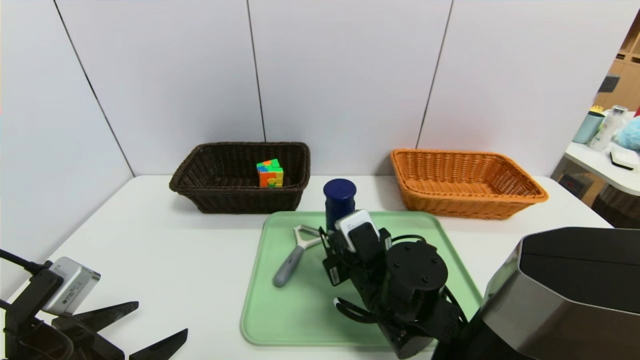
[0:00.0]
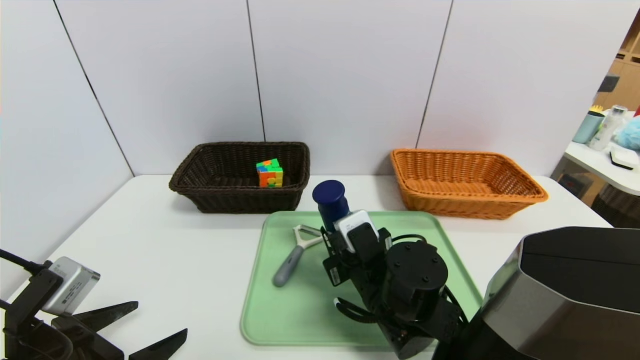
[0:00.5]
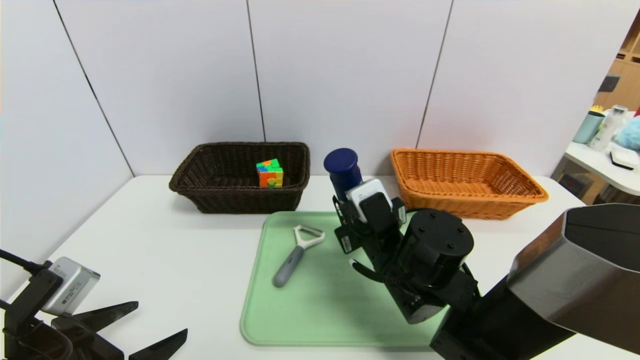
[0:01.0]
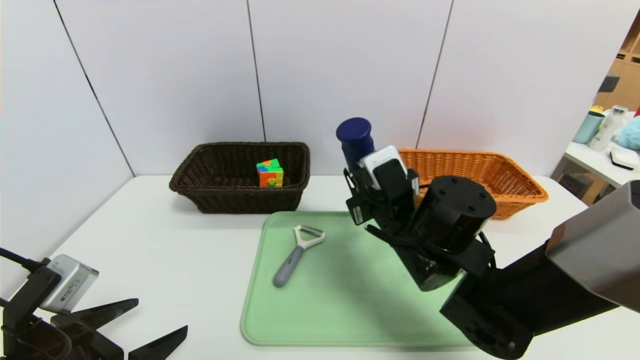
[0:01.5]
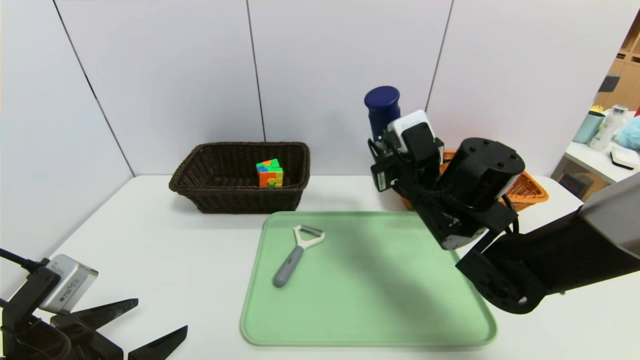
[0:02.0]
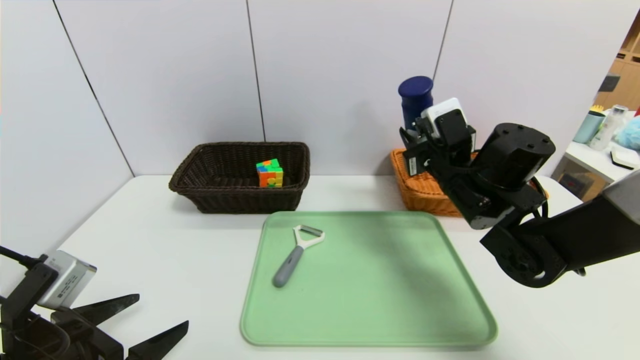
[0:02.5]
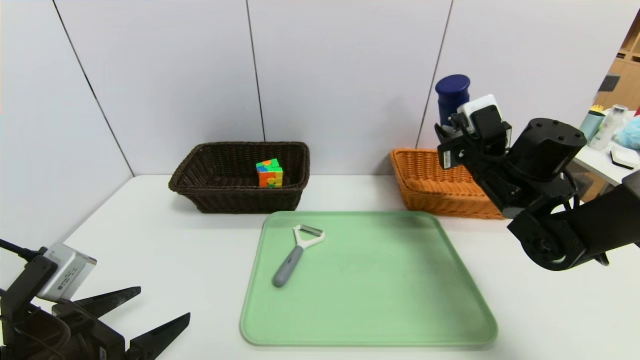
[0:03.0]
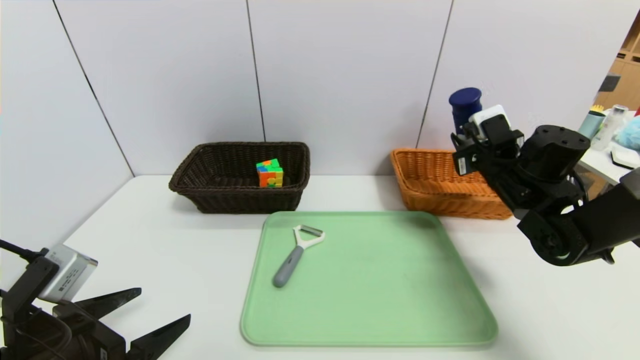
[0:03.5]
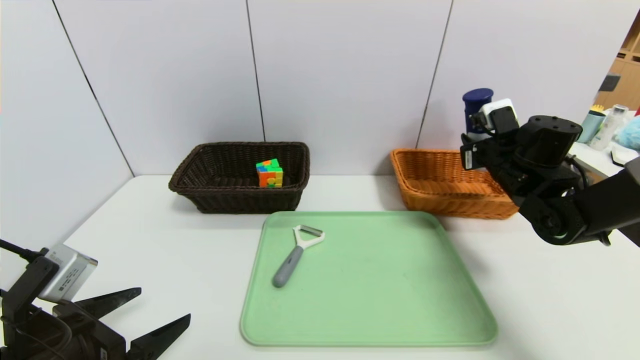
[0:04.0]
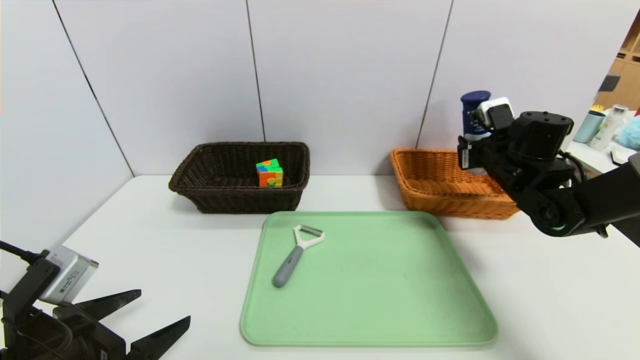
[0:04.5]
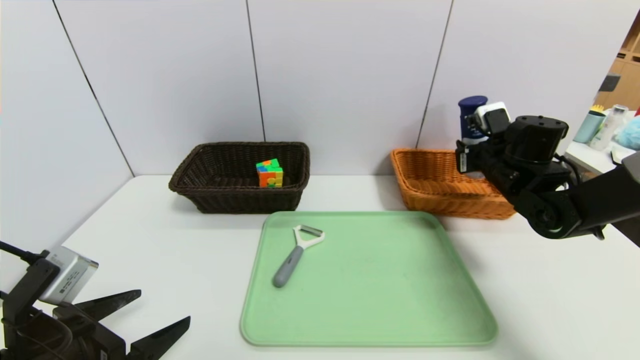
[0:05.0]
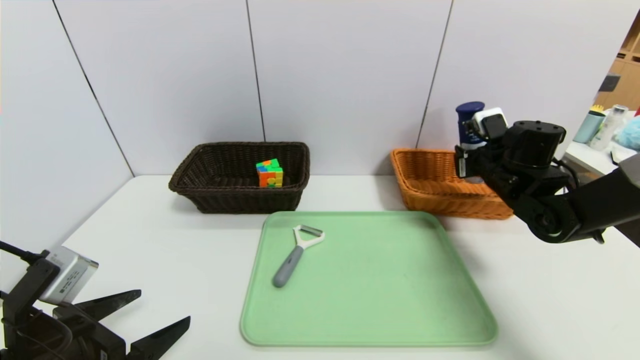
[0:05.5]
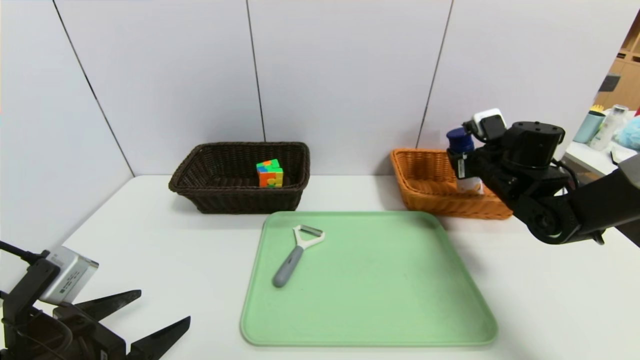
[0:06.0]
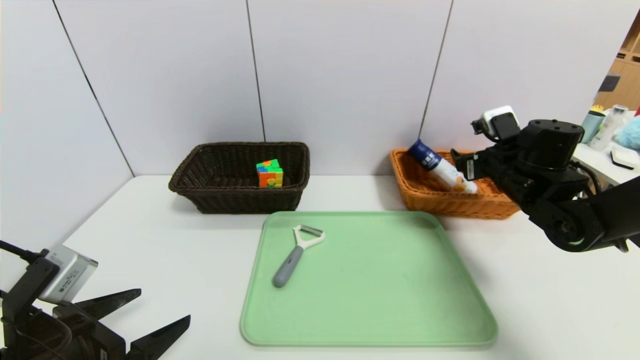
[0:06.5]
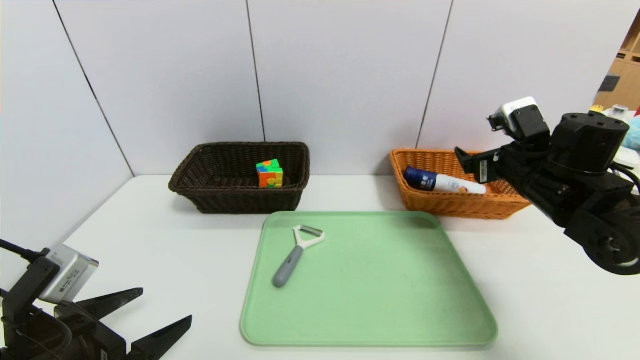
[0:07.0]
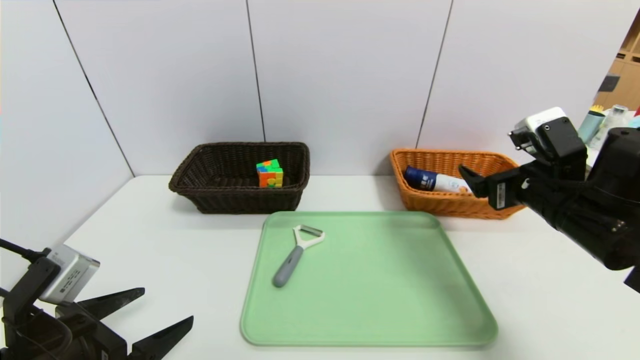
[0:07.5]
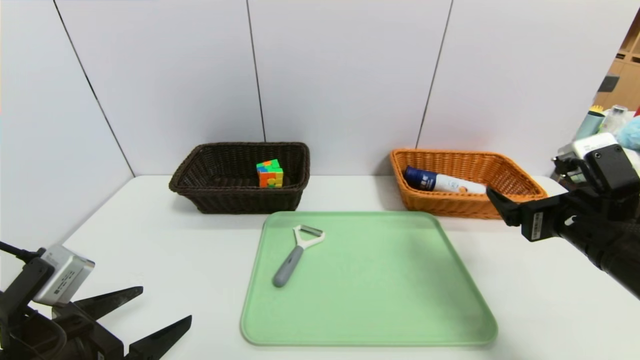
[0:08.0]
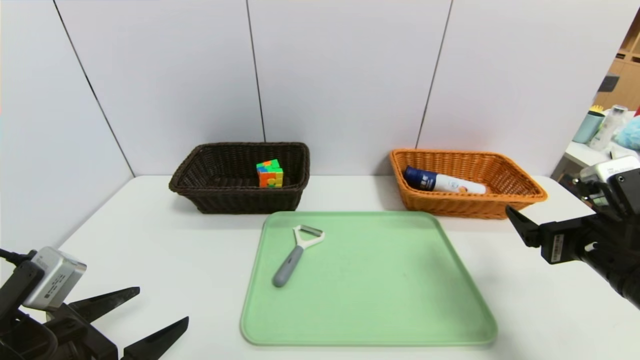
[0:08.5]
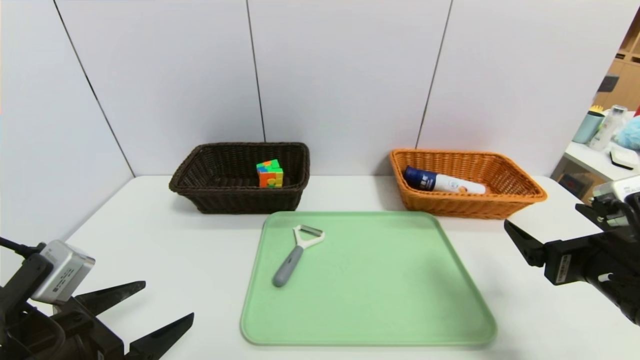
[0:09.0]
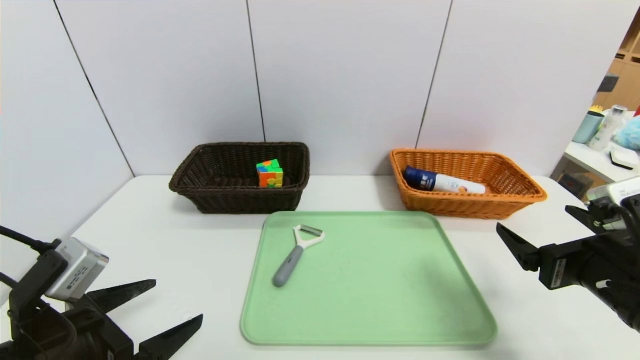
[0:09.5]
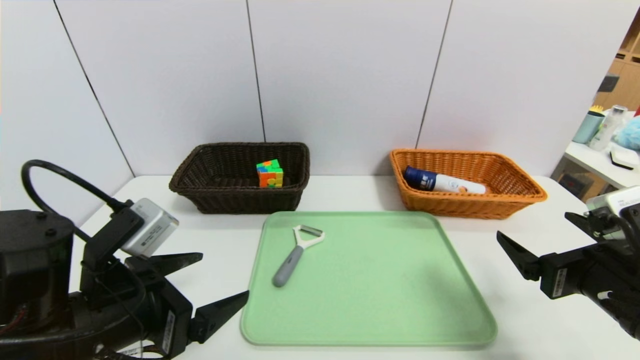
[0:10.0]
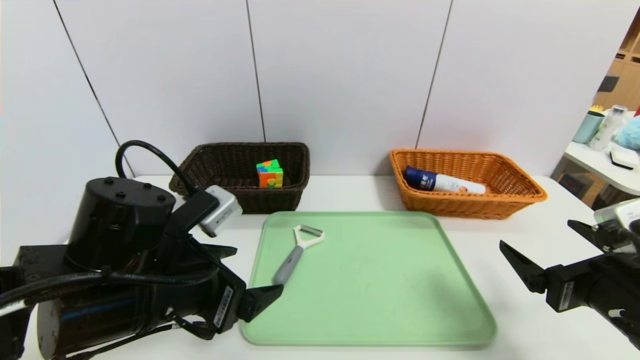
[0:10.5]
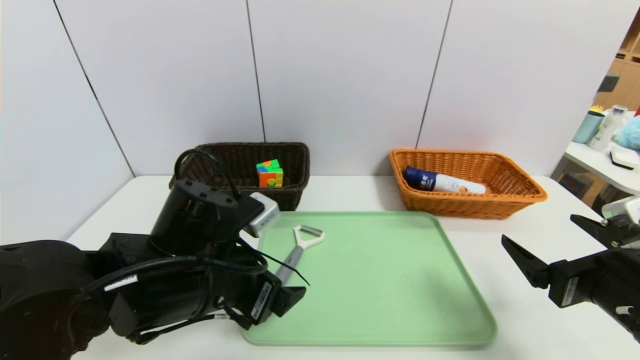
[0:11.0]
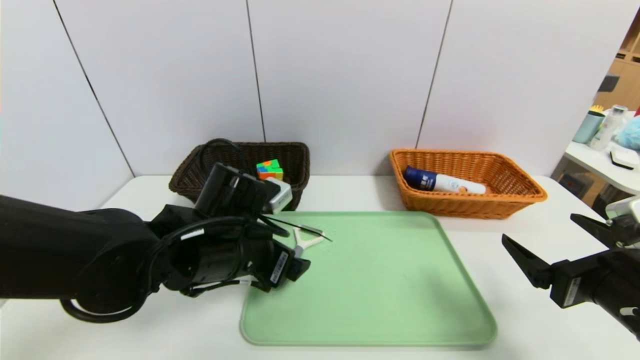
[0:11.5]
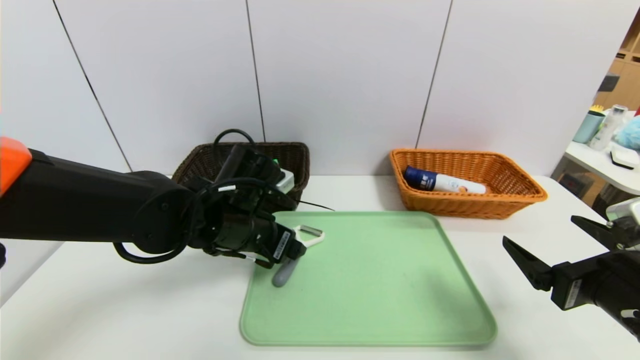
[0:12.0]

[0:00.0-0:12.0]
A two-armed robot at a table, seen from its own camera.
Task of the whole recording: place the food in the right basket with the right gripper, and place the non food items in the left basket with the left gripper.
Step, 0:00.0 to 0:07.0: Grasp the yogurt and put it in the right basket.
0:00.0 to 0:02.0: The right gripper is displaced upward, forward and to the right by roughly 15 cm.
0:02.0 to 0:04.0: The right gripper is displaced to the right and forward by some 20 cm.
0:04.0 to 0:06.0: The right gripper opens up.
0:06.0 to 0:08.0: The right gripper is displaced backward by approximately 20 cm, and opens up.
0:08.0 to 0:10.0: The right gripper travels backward by roughly 5 cm. The left gripper is displaced to the right by about 5 cm.
0:10.0 to 0:12.0: The left gripper goes about 15 cm forward and to the right.

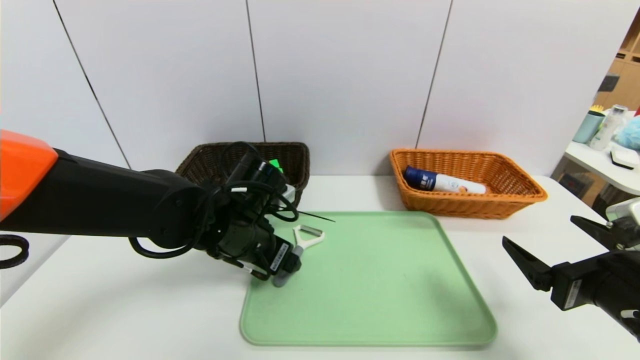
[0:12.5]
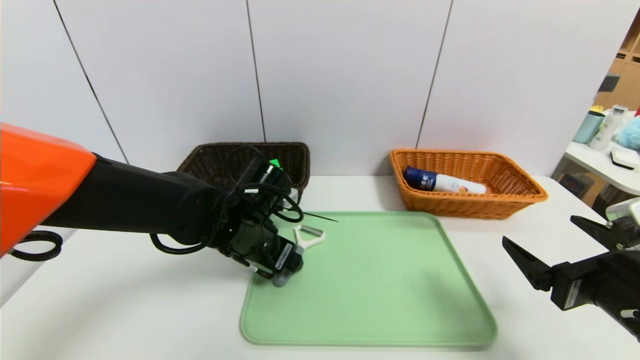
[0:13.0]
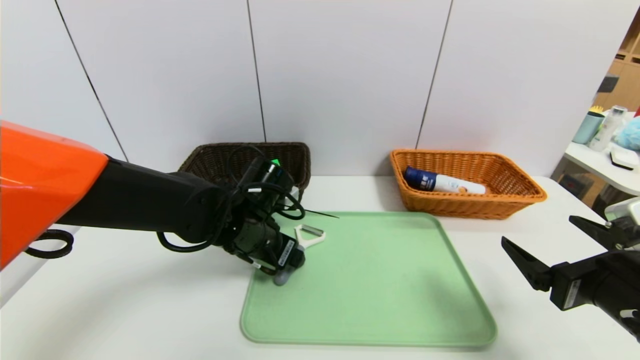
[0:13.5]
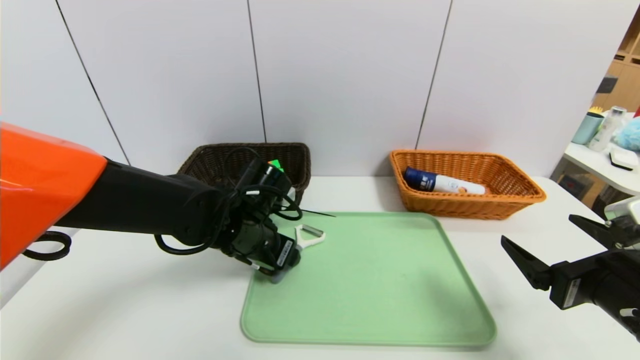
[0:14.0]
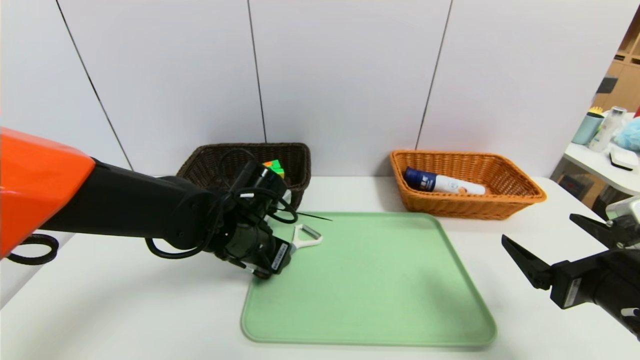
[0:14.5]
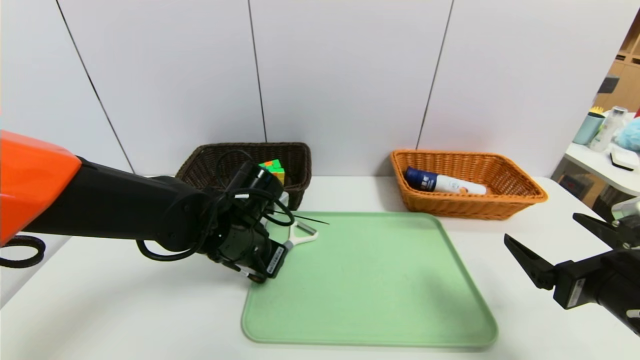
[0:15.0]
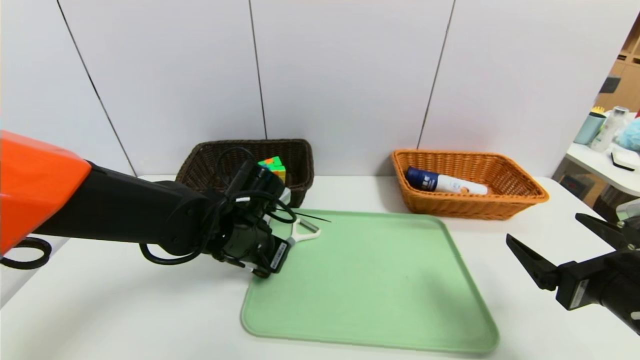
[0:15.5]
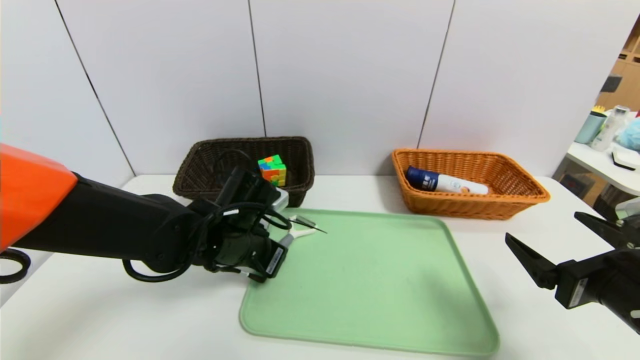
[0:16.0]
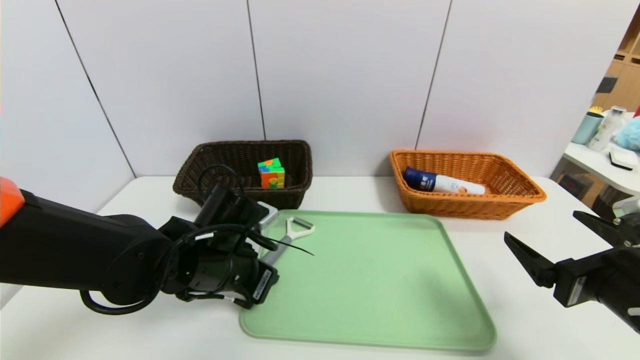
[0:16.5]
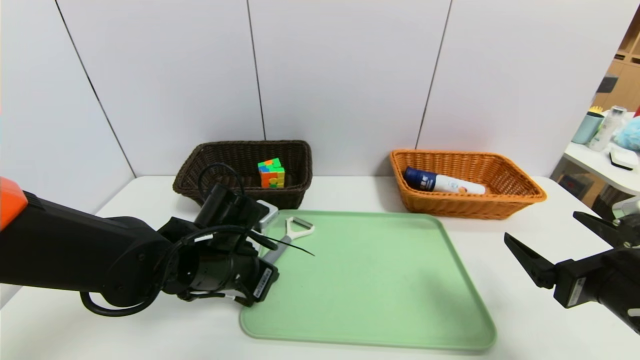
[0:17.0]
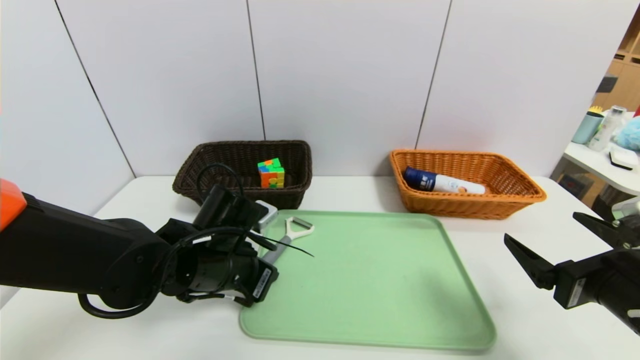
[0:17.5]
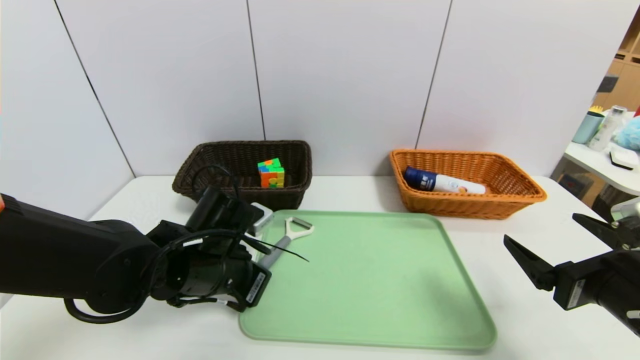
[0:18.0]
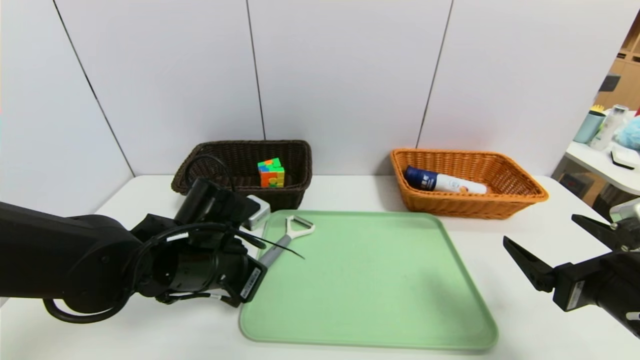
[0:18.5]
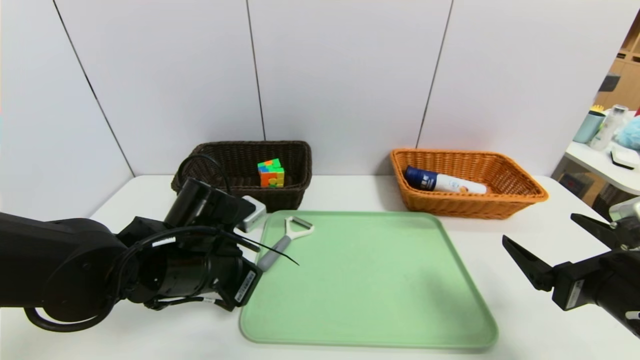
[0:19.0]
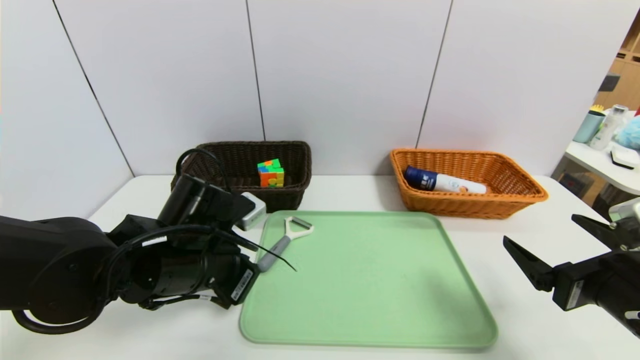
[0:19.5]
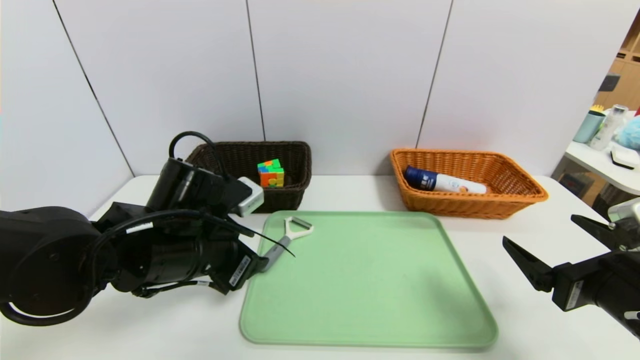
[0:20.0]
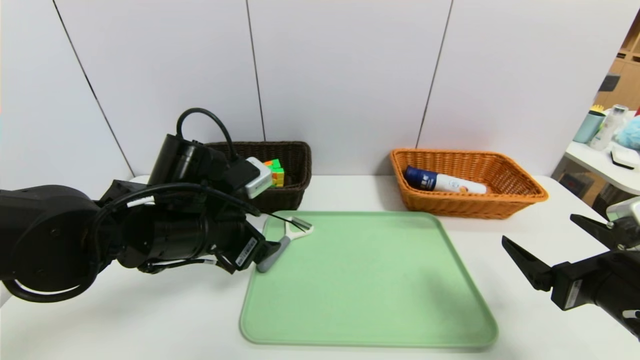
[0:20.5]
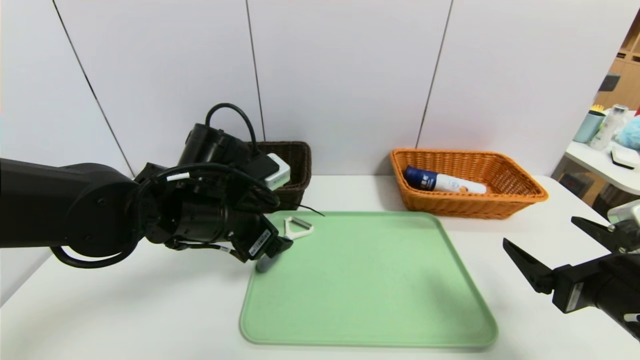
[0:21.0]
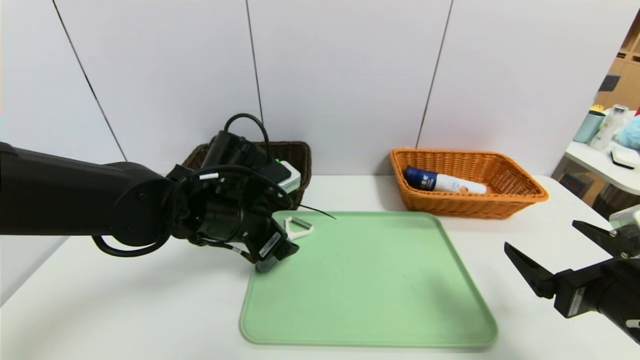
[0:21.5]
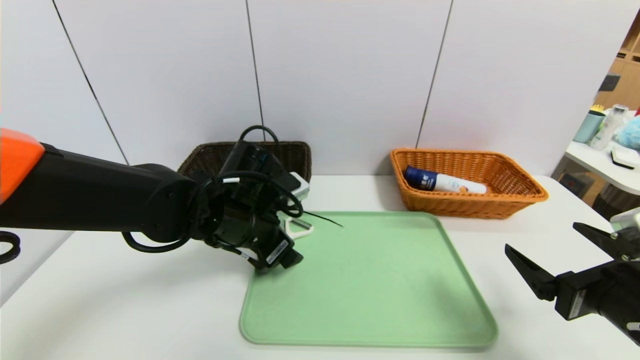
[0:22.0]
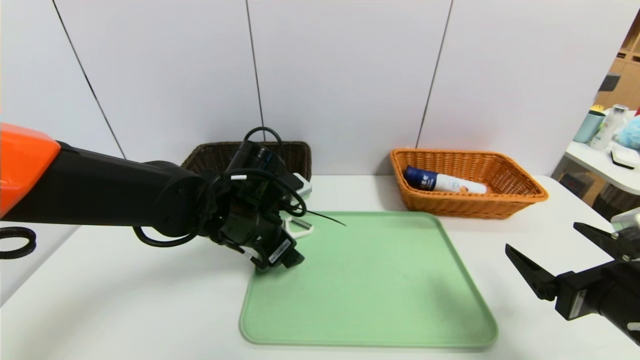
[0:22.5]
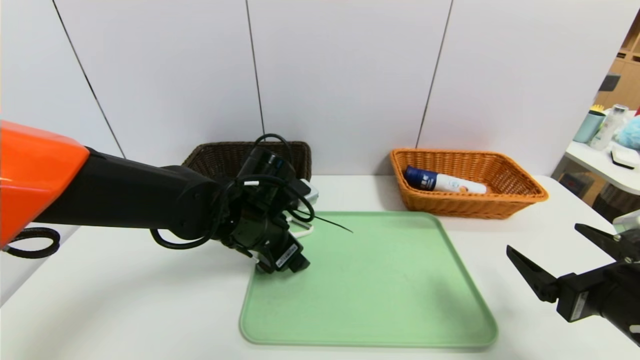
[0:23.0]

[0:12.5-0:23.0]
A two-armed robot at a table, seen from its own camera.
Task of the whole recording: place the food in the right basket with the right gripper, and place the non food items in the left basket with the left gripper.
0:12.5 to 0:14.5: The left gripper closes.
0:14.5 to 0:16.5: The left gripper ends up some 5 cm from where it was.
0:16.5 to 0:19.0: The left gripper closes.
0:19.0 to 0:21.0: The left gripper shifts by approximately 5 cm, and opens.
0:21.0 to 0:23.0: The left gripper ends up about 5 cm from where it was.
